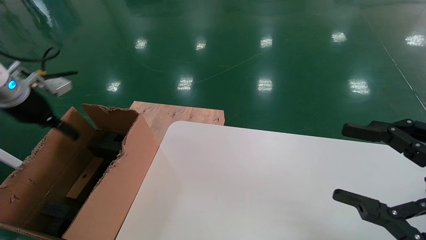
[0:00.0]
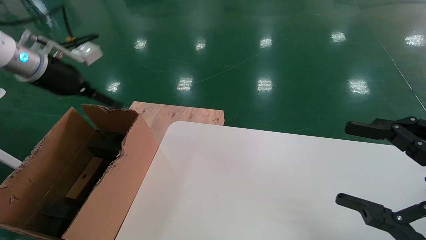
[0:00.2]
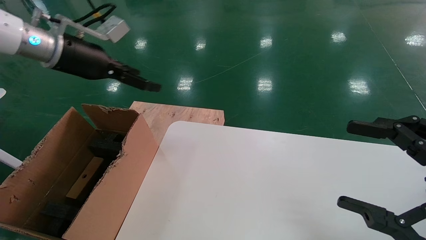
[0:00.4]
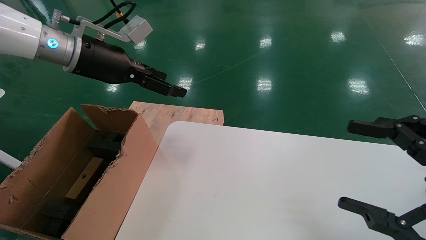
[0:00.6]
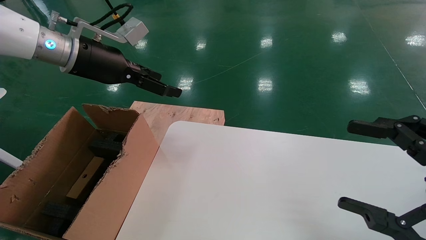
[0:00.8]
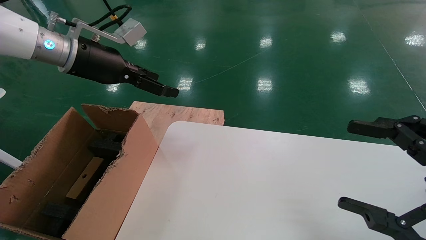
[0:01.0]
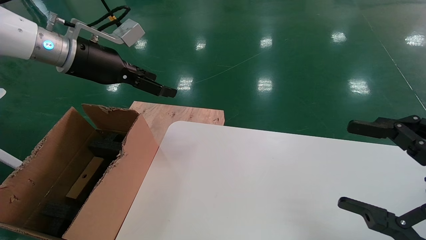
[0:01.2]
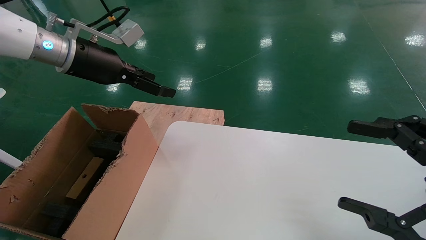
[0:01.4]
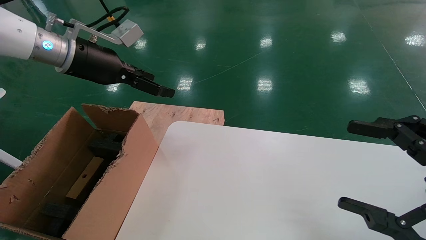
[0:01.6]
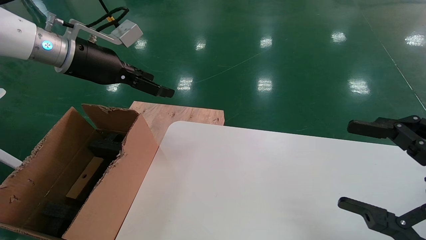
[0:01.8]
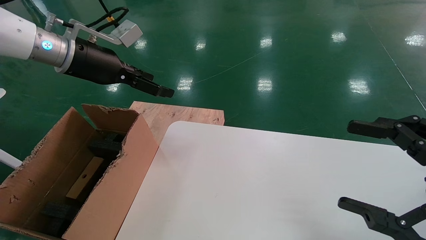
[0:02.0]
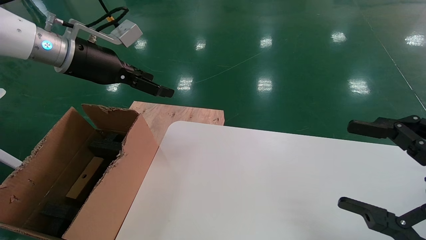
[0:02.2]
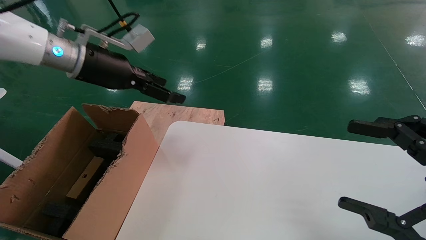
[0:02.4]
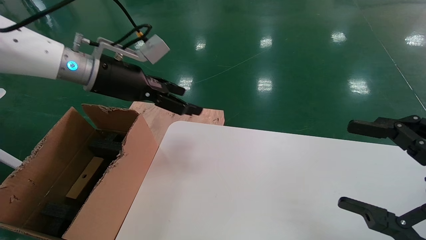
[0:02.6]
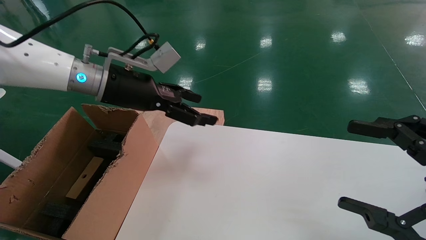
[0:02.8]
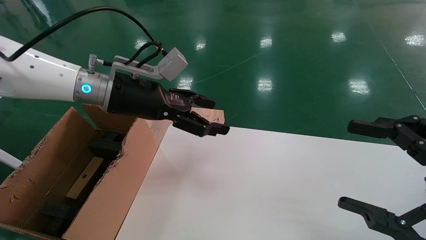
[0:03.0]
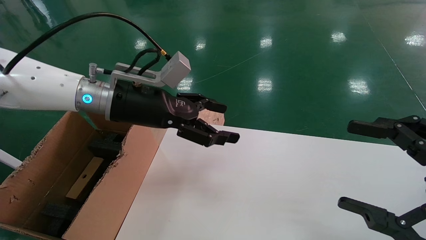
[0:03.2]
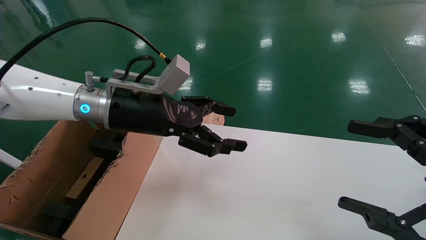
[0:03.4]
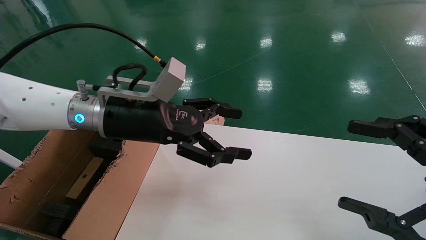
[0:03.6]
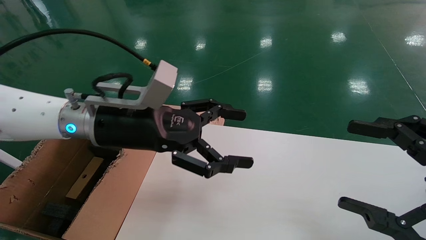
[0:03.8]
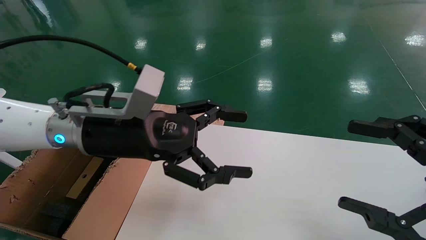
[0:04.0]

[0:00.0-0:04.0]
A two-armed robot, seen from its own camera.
Task of the whole recording: place the small box on the table into the large box on the left.
0:00.0 to 0:01.4: The left gripper is displaced to the right and upward by roughly 15 cm.
0:01.4 to 0:02.6: The left gripper changes place by about 5 cm.
0:02.6 to 0:04.0: The left gripper travels backward, to the right and downward by some 15 cm.
